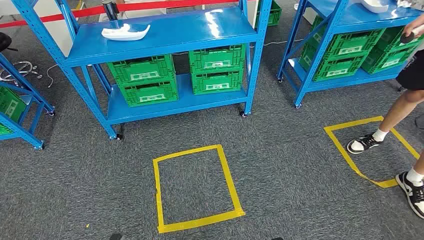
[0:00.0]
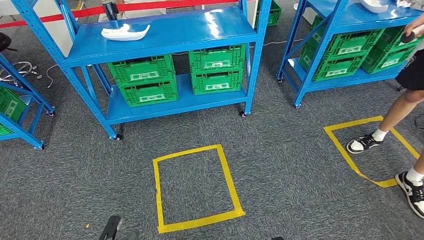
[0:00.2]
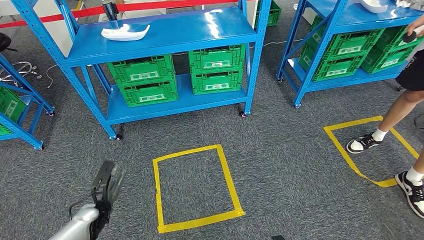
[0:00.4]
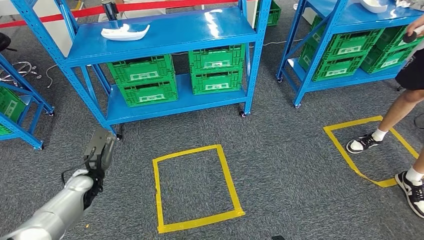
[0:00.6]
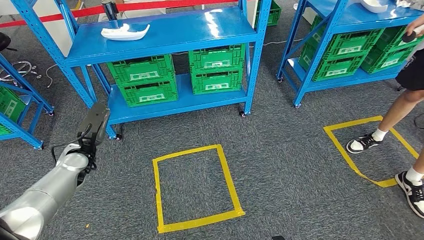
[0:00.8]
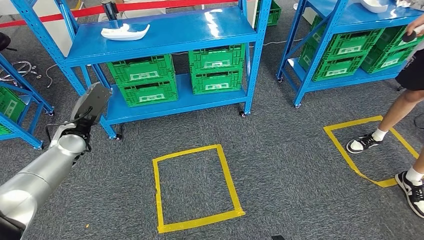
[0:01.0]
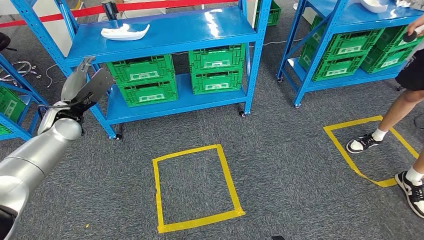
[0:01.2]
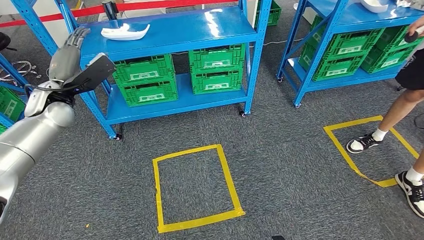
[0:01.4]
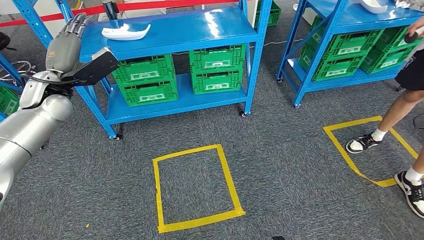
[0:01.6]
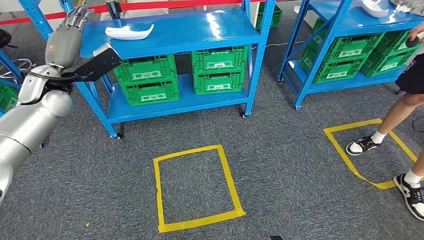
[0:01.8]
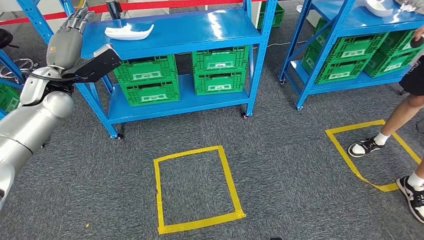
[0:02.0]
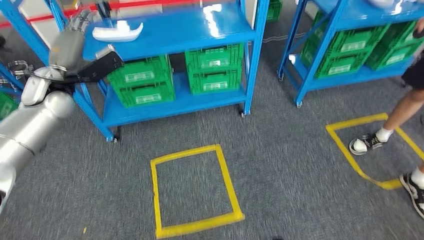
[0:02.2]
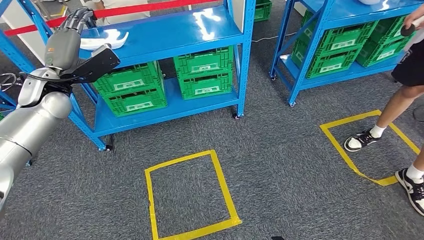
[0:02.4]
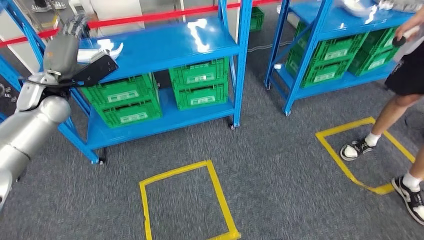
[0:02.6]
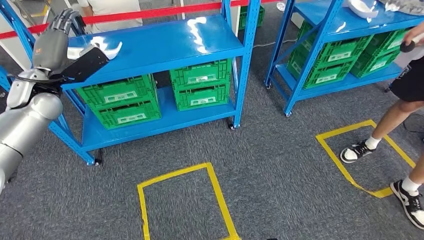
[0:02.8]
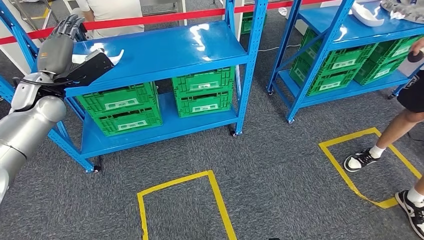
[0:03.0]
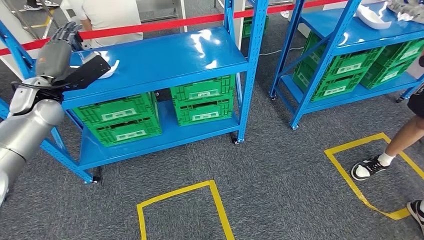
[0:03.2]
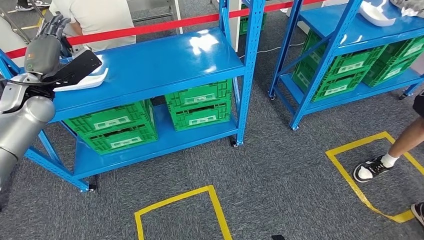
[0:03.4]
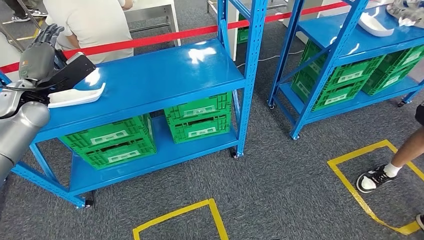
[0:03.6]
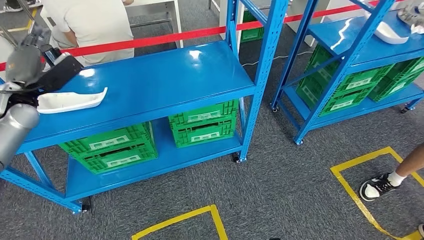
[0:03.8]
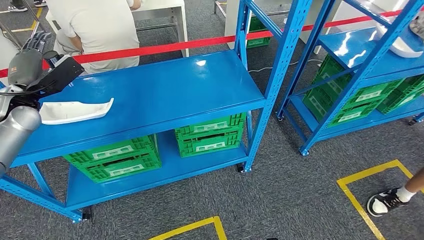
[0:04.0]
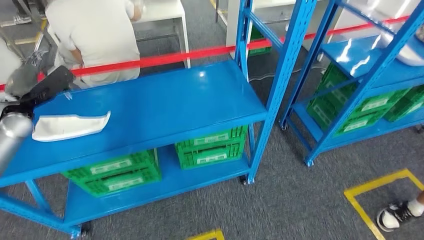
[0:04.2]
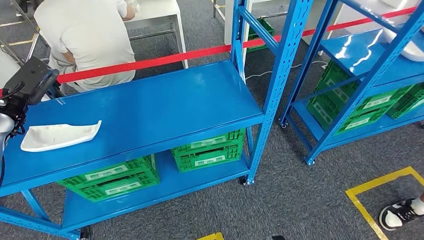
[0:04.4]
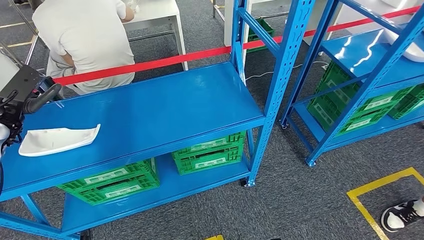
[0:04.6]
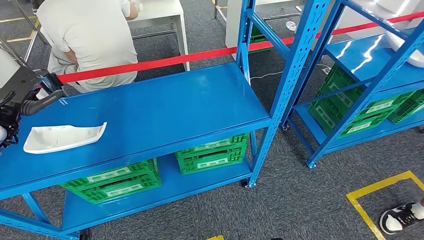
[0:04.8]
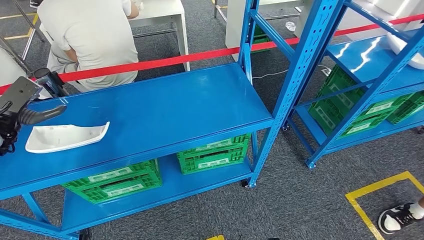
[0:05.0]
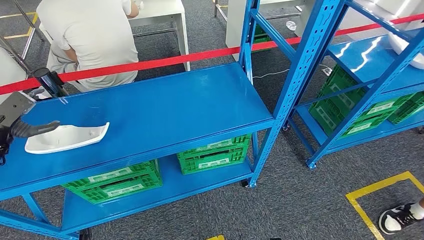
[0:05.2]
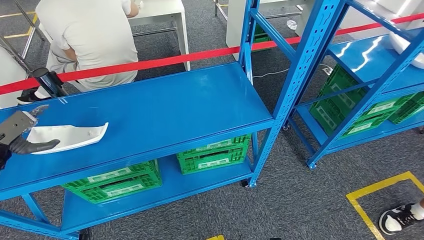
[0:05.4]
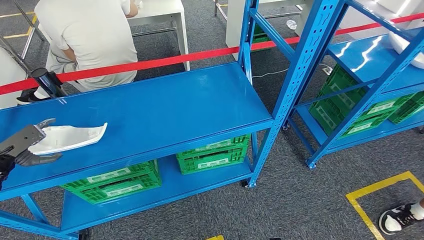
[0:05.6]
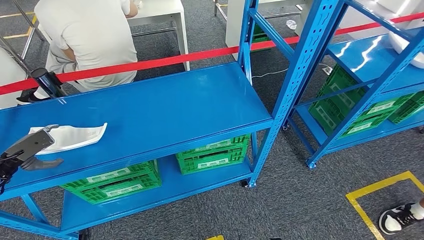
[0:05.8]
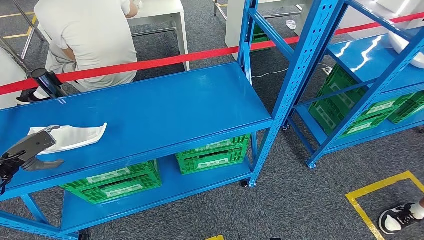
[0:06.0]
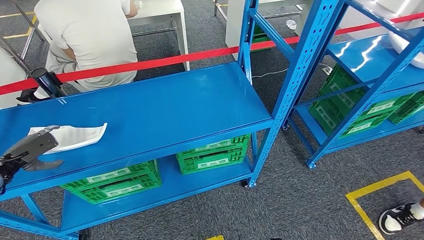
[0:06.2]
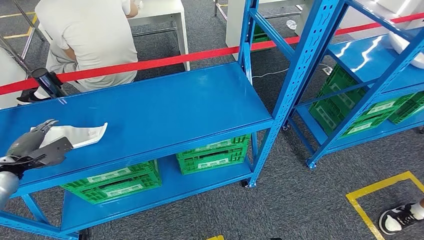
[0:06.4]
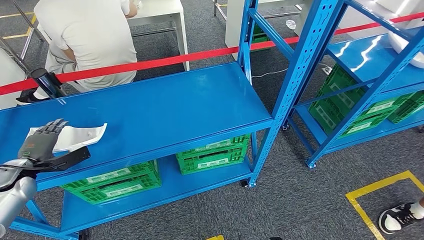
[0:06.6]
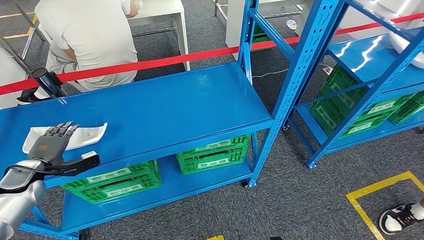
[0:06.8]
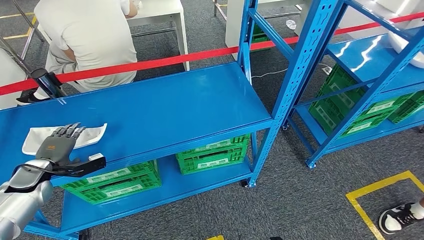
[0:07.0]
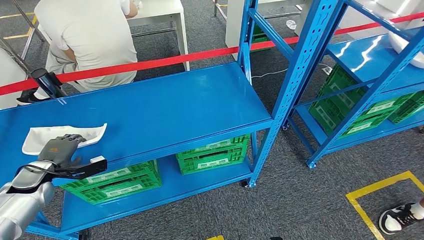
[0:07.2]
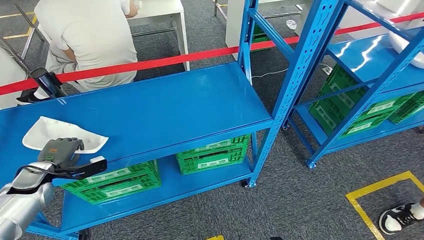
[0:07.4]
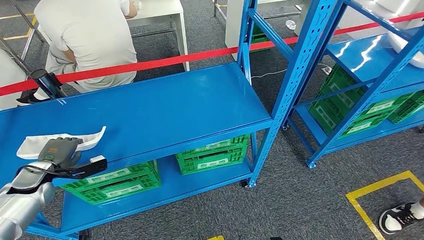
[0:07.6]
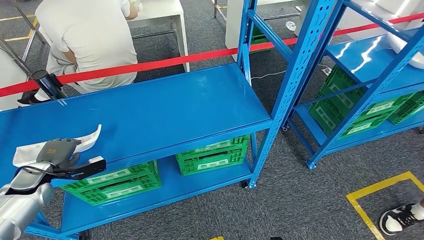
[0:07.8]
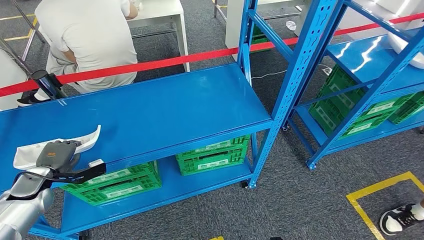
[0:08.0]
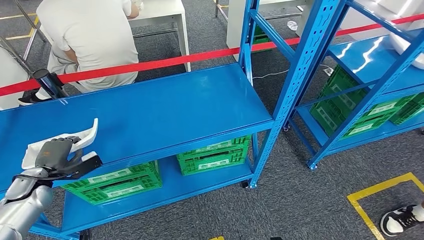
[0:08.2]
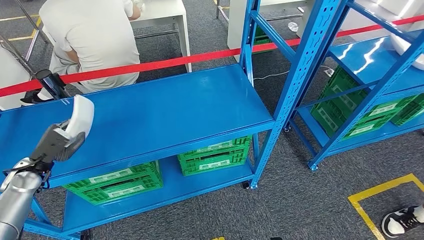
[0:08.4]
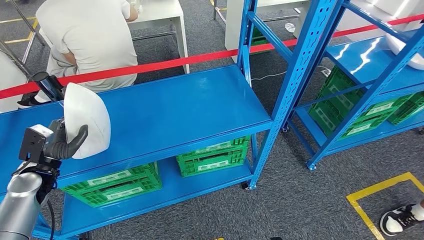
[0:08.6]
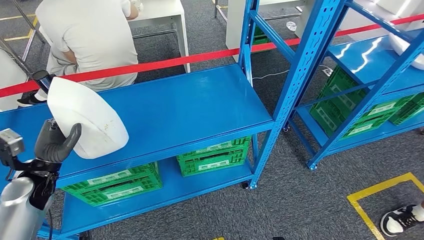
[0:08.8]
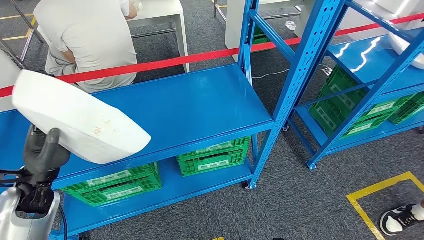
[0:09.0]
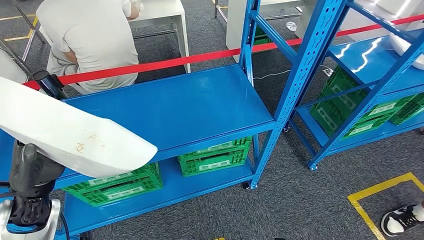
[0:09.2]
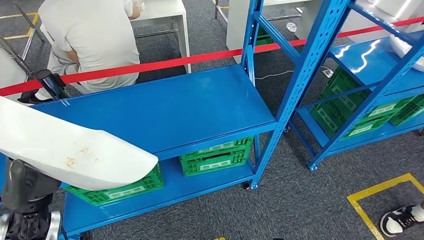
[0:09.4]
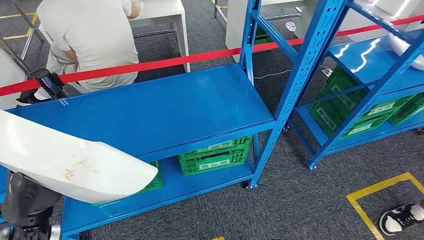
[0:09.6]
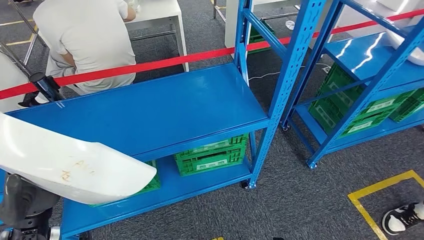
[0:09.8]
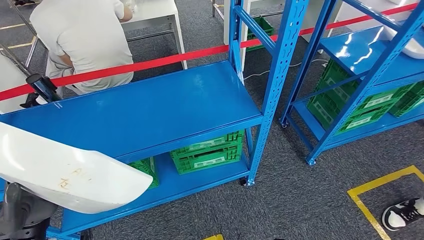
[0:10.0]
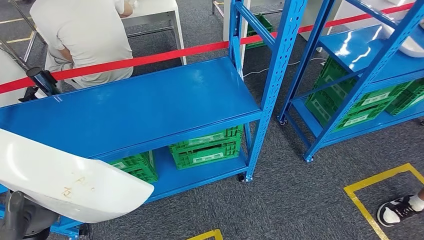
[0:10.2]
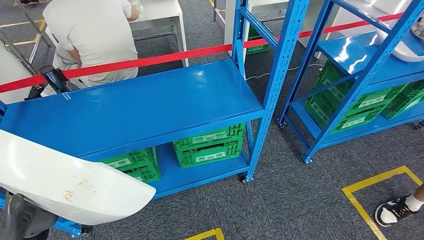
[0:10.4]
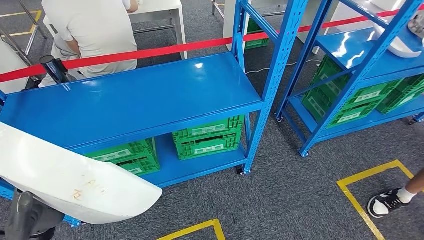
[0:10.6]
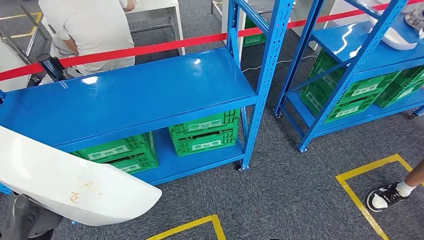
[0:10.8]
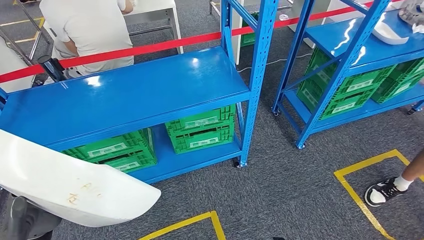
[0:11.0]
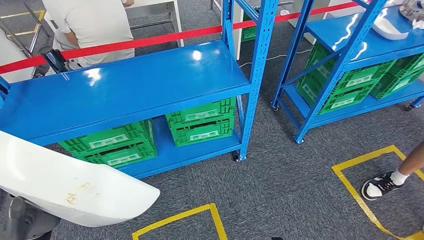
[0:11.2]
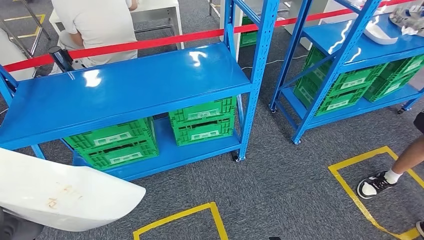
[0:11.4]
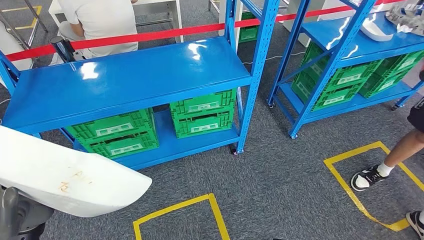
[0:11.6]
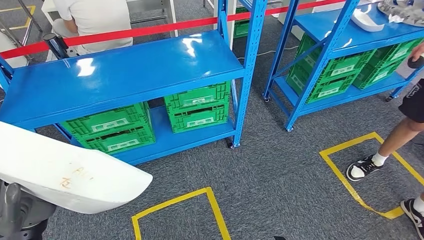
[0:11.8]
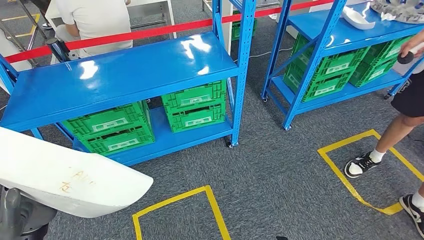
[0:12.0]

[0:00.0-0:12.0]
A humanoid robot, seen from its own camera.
Step, 0:00.0 to 0:09.6: Pick up the small component from the shelf.
0:06.0 to 0:07.6: The left hand shifts about 10 cm to the right.

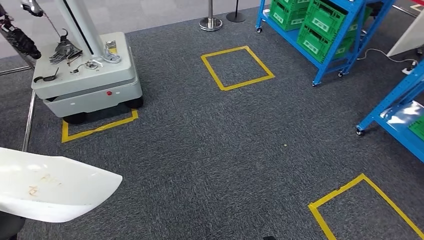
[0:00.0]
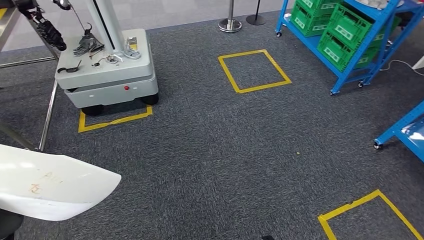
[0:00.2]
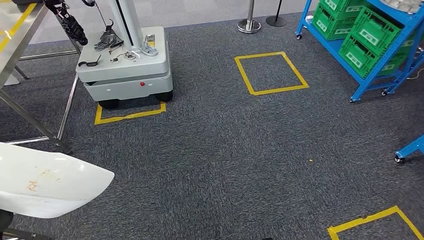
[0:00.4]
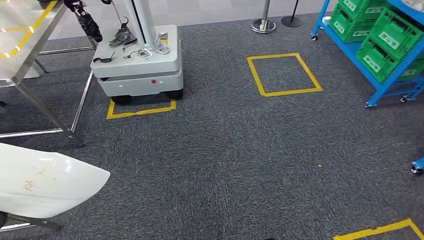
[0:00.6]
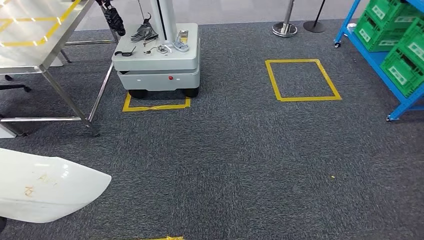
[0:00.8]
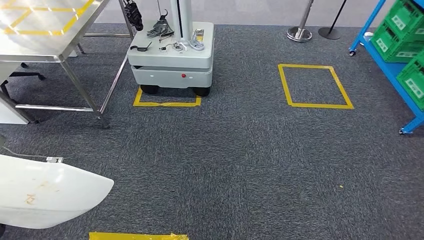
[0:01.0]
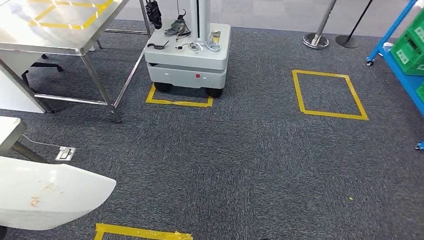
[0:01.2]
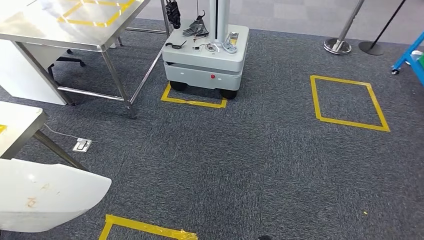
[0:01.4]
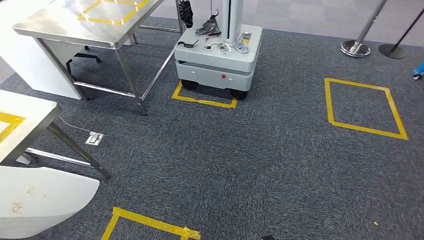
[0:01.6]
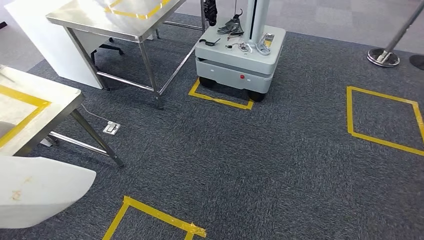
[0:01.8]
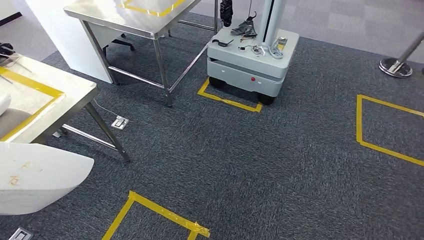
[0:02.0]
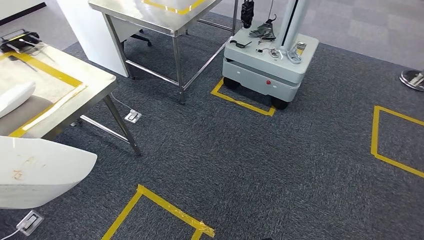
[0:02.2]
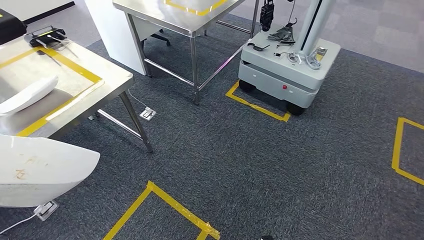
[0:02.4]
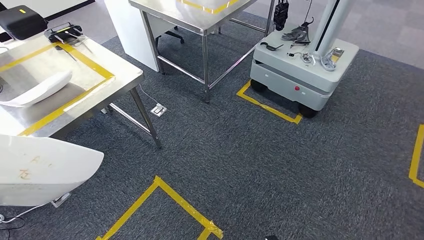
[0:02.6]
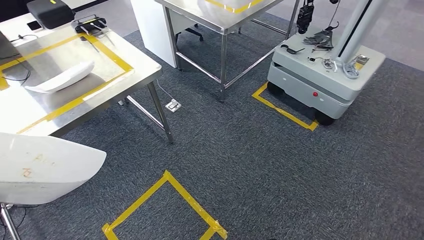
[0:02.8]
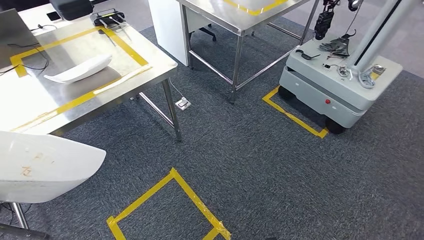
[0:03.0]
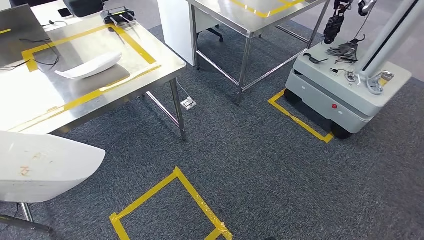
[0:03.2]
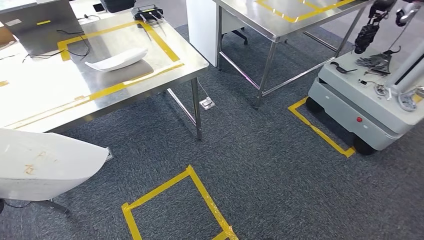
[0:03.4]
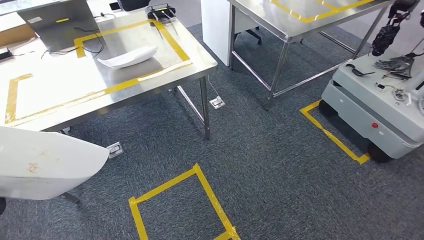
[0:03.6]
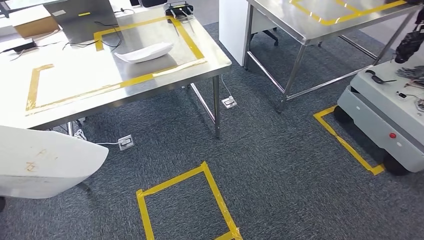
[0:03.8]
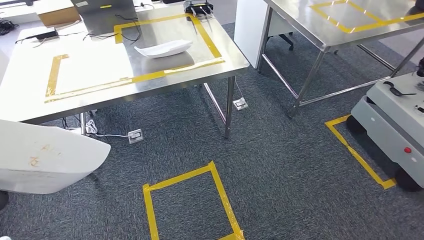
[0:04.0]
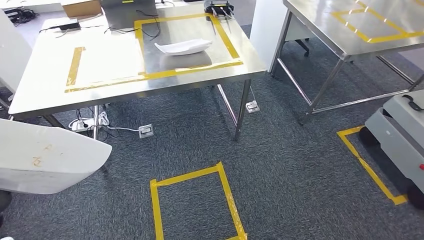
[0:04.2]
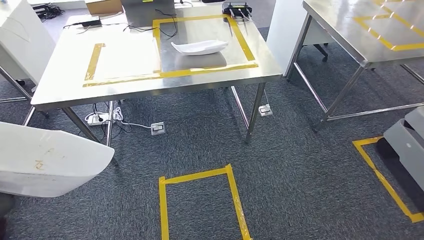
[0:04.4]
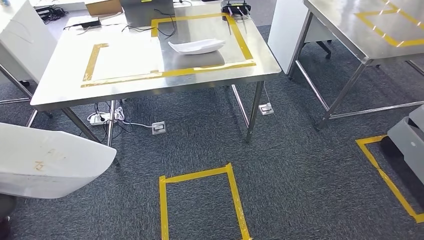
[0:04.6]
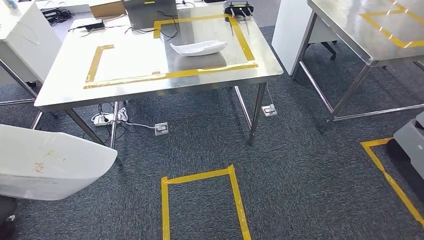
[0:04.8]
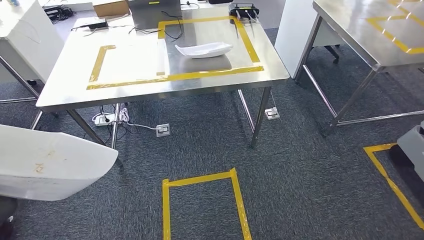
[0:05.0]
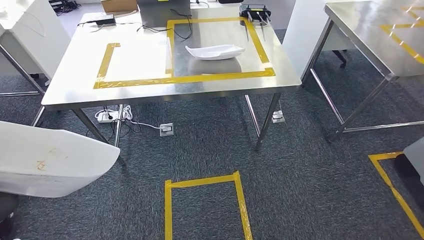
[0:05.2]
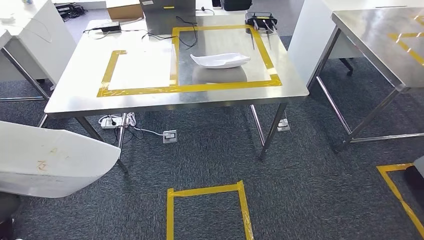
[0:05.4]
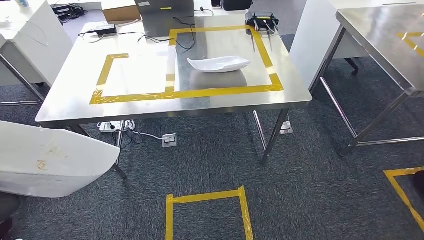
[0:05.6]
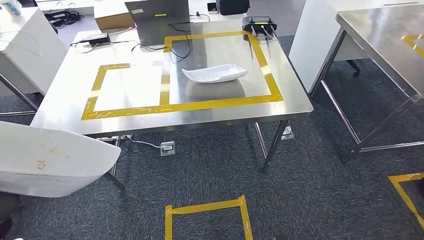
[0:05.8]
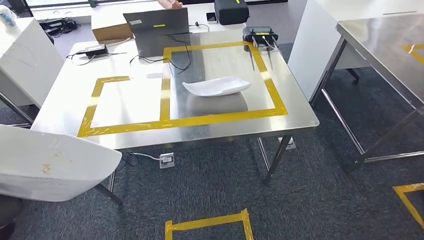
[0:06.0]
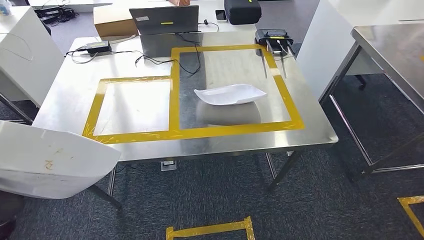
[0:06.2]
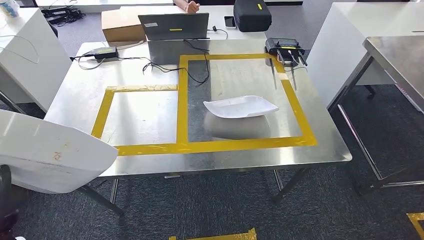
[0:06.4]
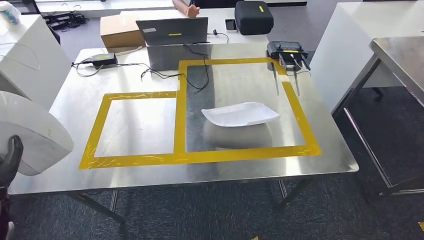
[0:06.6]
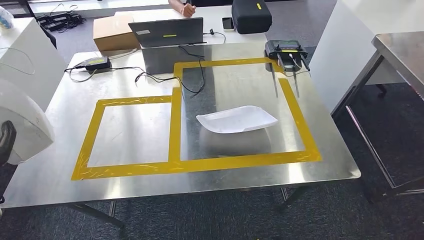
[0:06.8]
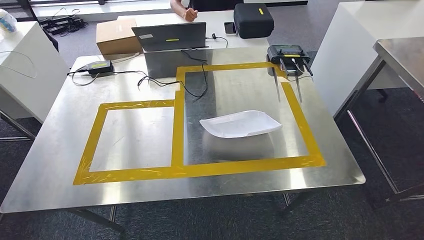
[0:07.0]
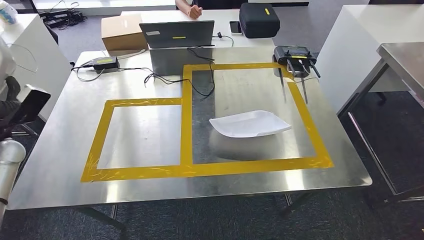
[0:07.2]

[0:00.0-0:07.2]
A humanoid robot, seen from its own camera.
Step, 0:00.0 to 0:04.8: Move the small component to the workbench.
